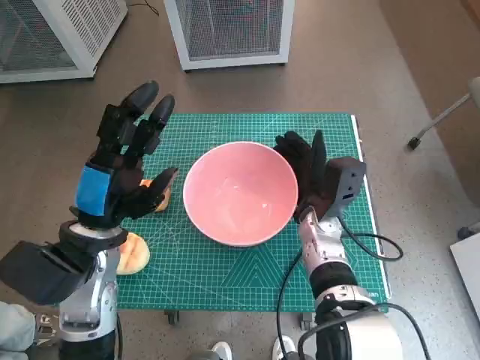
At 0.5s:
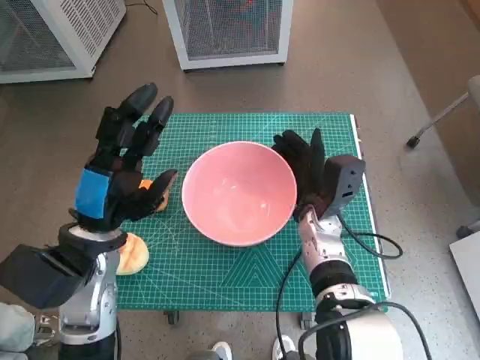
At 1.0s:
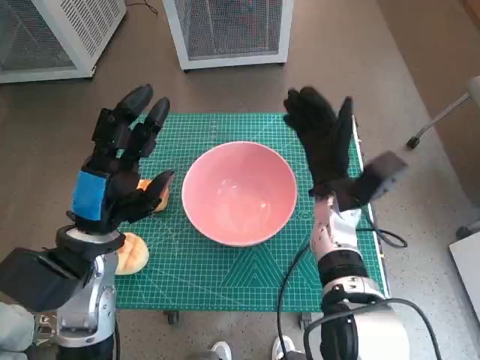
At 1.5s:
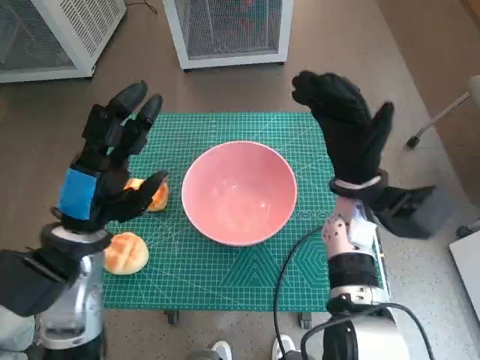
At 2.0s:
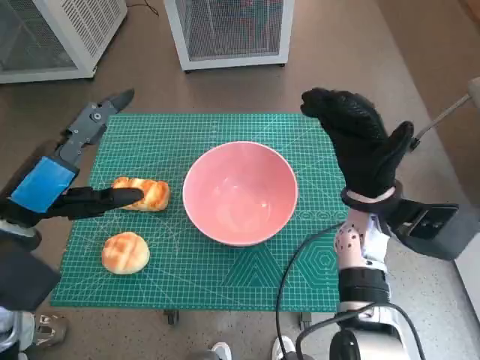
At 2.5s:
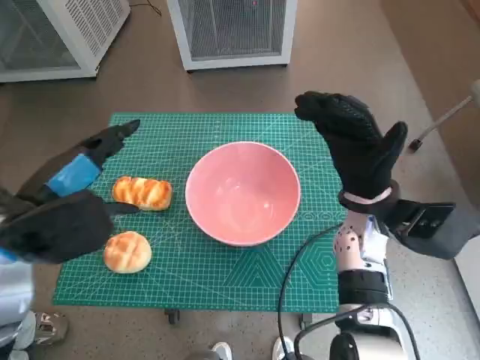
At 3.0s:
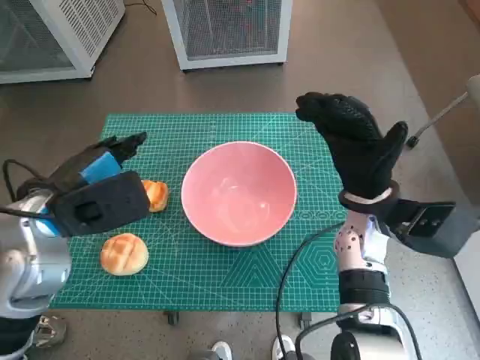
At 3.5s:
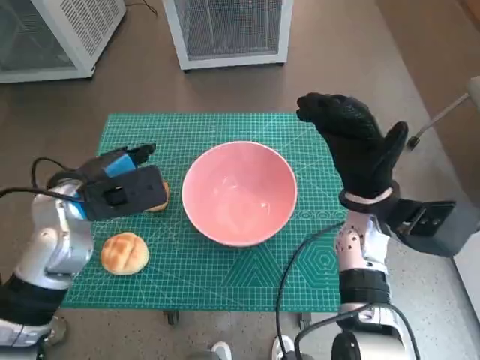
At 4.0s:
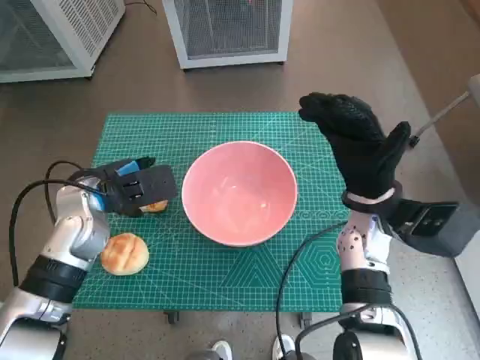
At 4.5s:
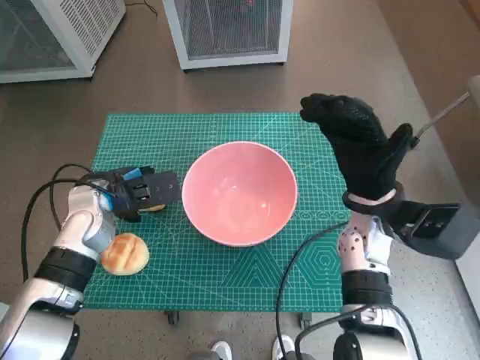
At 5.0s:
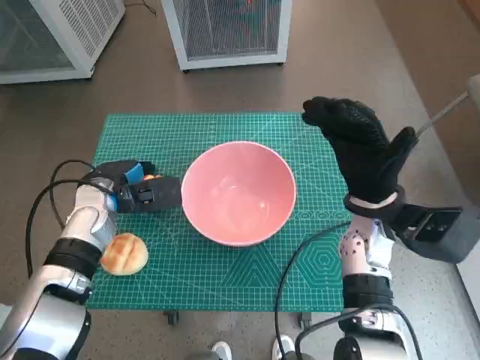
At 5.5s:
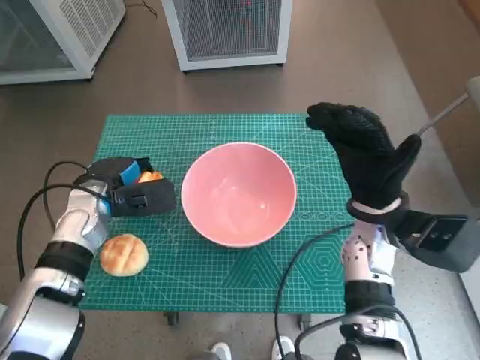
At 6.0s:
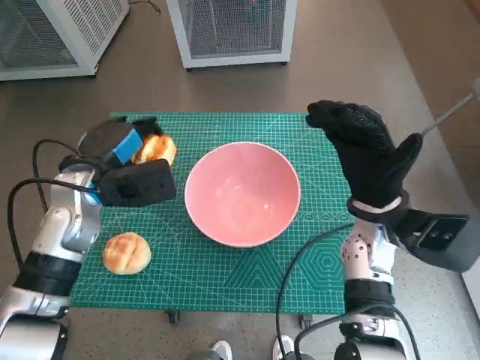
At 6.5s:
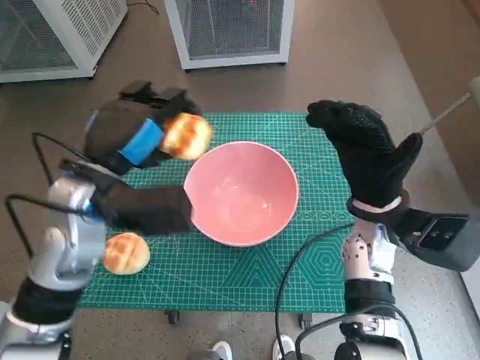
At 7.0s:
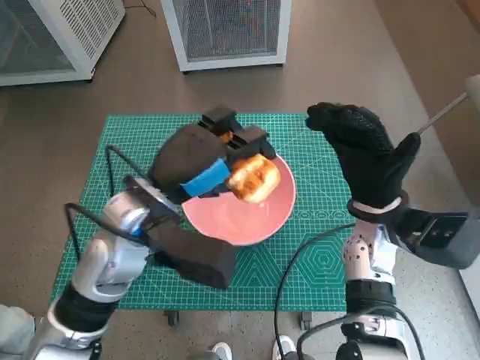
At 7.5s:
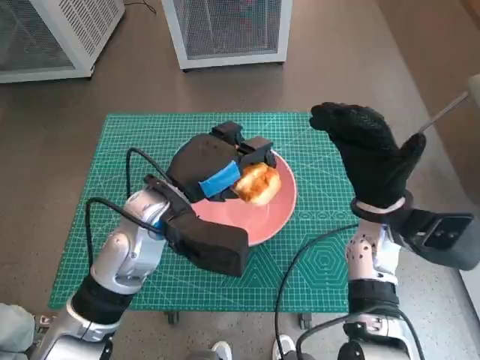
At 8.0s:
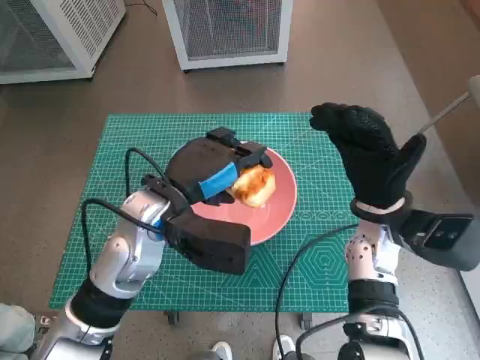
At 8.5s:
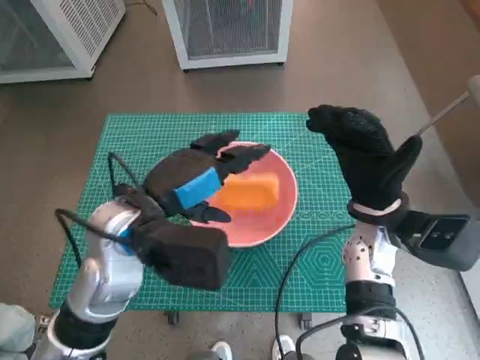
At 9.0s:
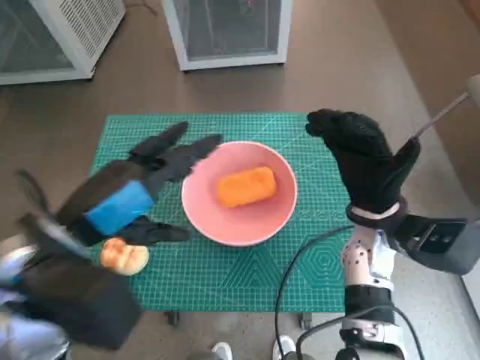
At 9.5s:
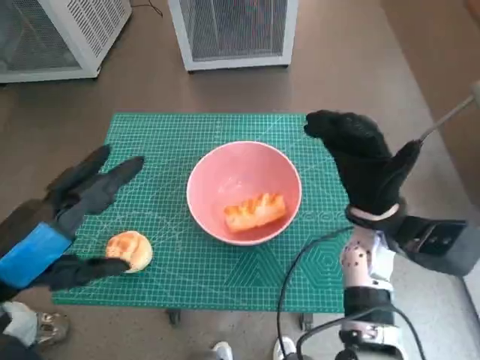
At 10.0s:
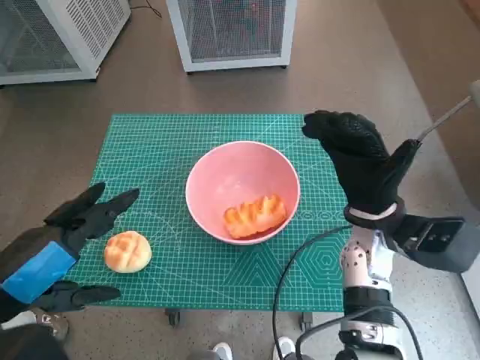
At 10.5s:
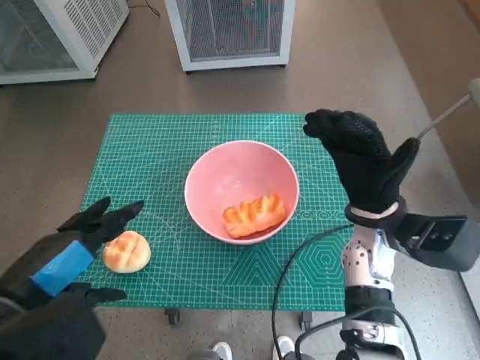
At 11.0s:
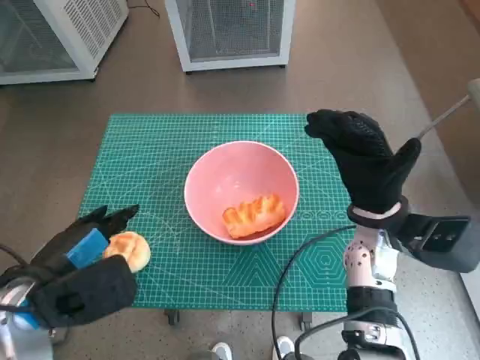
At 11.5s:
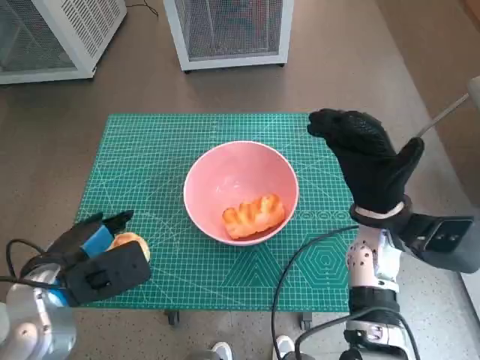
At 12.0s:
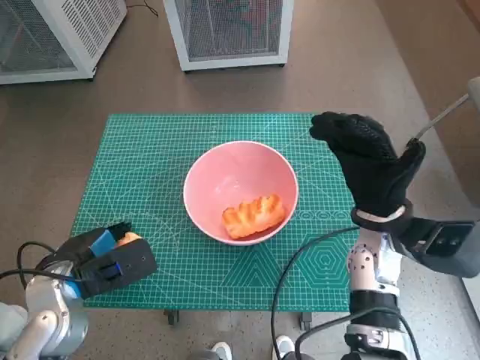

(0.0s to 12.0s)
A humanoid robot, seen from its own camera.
Task of the whole recording: Push the bowl into the center of the table and put the bread into the bowl.
Step, 1.0s - 4.5s: Grasp the long bread with left hand.
Step, 5.0s - 8.0s: Place the long bread in pink bowl with left hand.
0.0s - 2.0s: The left hand moves upward and to the left, roughly 10 cm. Meanwhile the right hand moves upward and to the right, roughly 10 cm.
2.0s - 4.0s: The left hand travels forward and downward by about 15 cm.
6.0s - 8.0s: The left hand travels to the right by roughly 10 cm.
8.0s - 10.0s: The left hand travels backward and to the left by roughly 20 cm.
10.0s - 12.0s: The left hand is displaced downward and forward by roughly 15 cm.

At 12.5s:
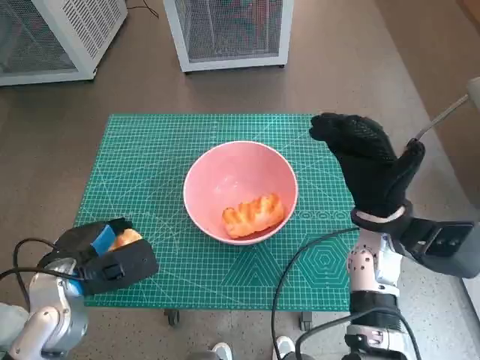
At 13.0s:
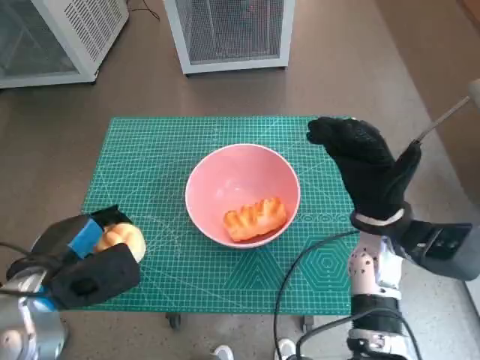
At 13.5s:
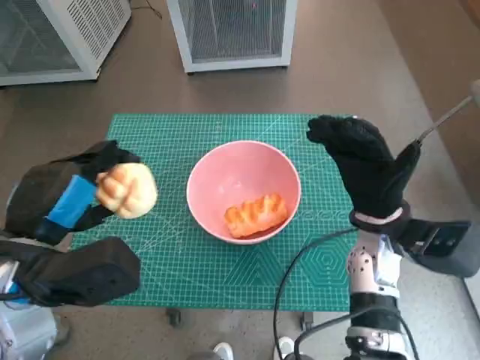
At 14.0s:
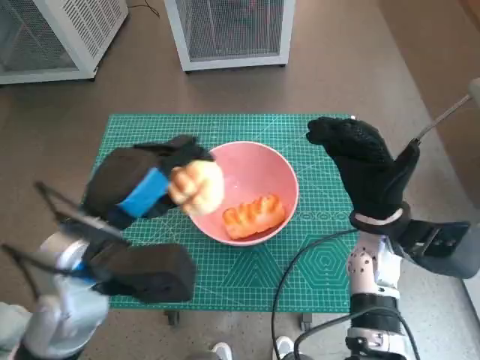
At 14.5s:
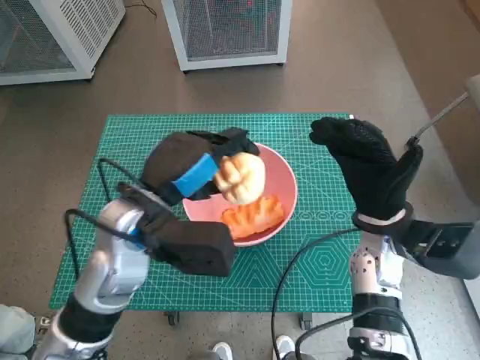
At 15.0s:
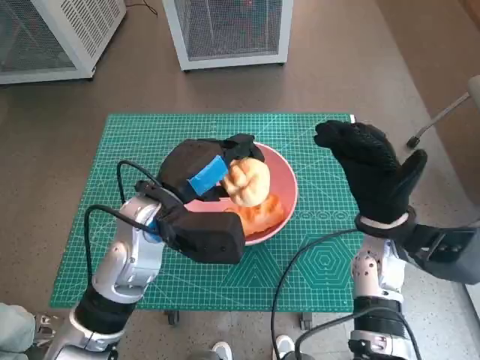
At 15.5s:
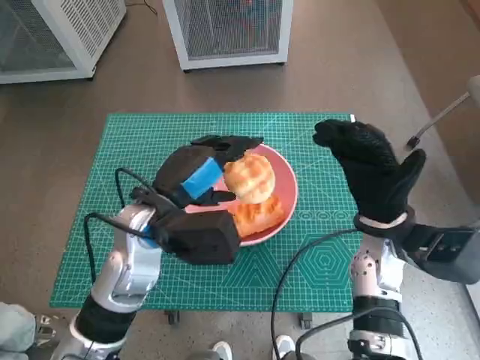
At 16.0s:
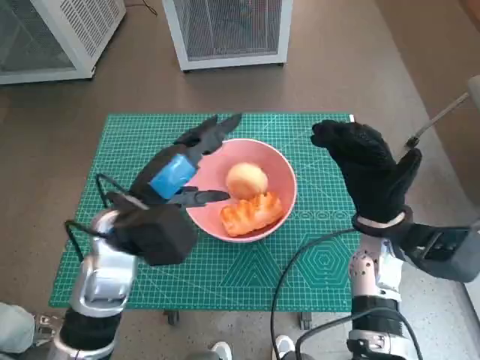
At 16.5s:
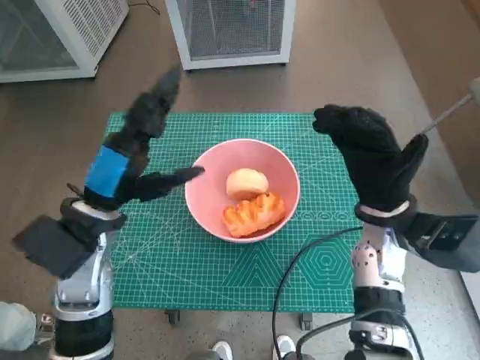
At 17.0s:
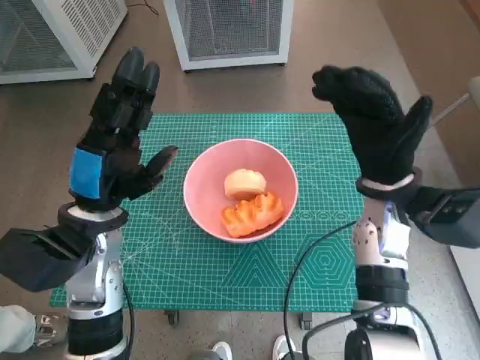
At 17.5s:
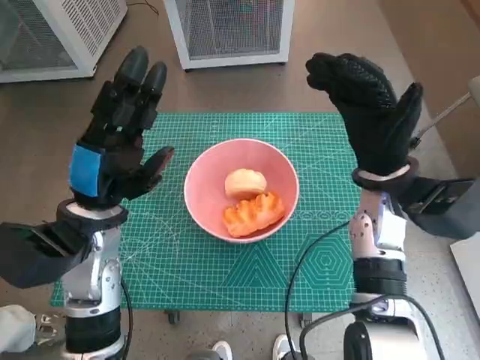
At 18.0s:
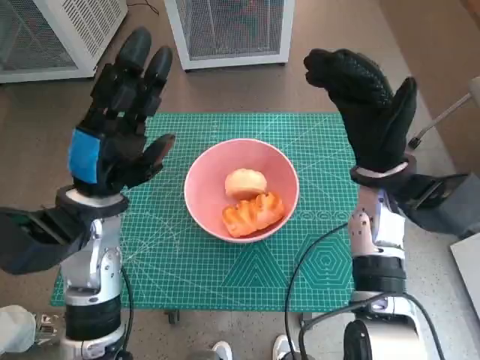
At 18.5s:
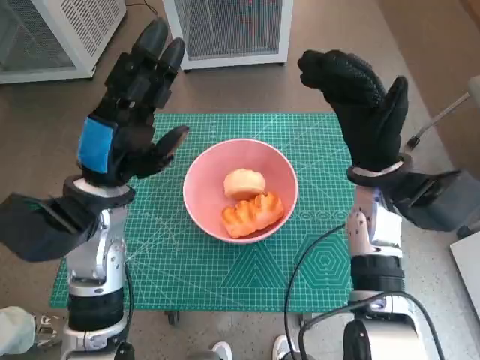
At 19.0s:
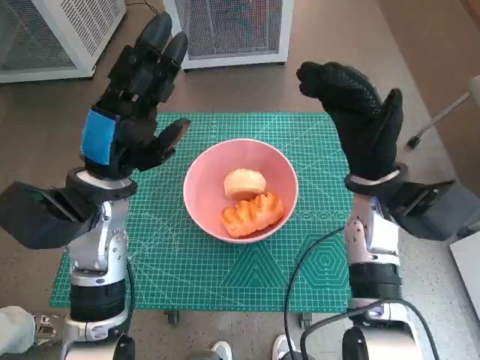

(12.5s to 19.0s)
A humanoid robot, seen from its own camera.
Task of the whole recording: Push the bowl into the center of the table and put the bread into the bowl.
Step, 12.5s - 15.5s: Place the round bread in pink bowl with left hand.
12.5s - 14.5s: The left hand travels to the right and upward by about 15 cm.
14.5s - 17.0s: The left hand heads to the left, covering approximately 5 cm.

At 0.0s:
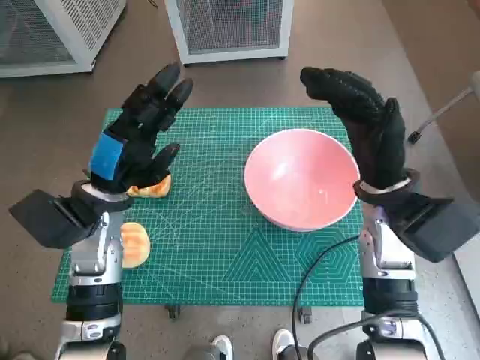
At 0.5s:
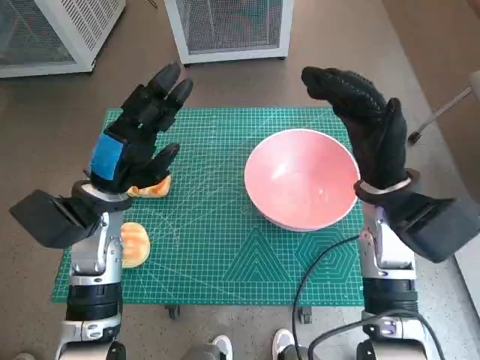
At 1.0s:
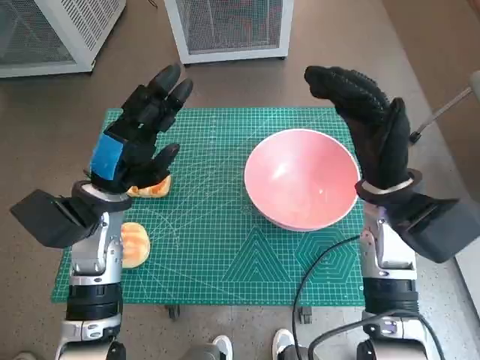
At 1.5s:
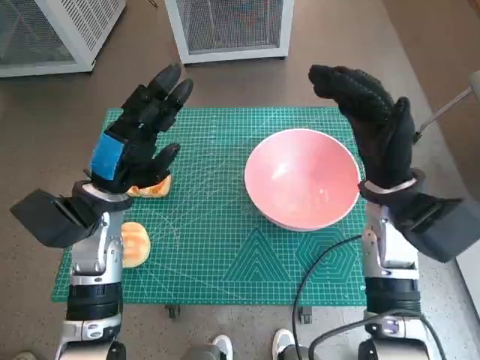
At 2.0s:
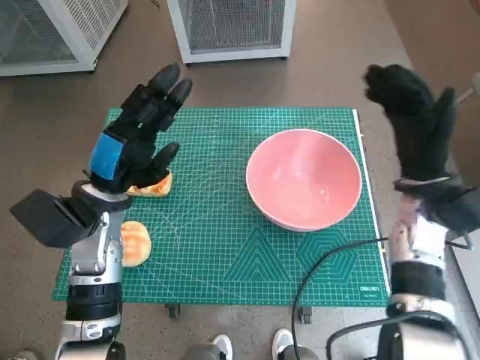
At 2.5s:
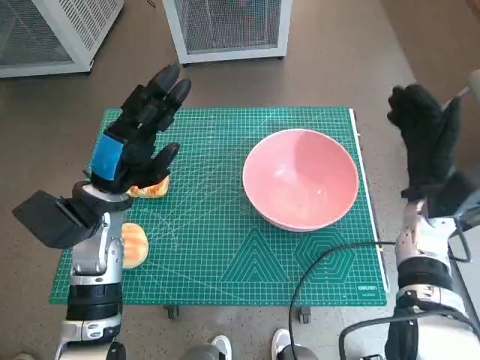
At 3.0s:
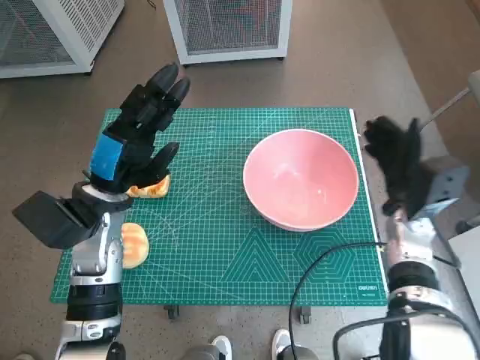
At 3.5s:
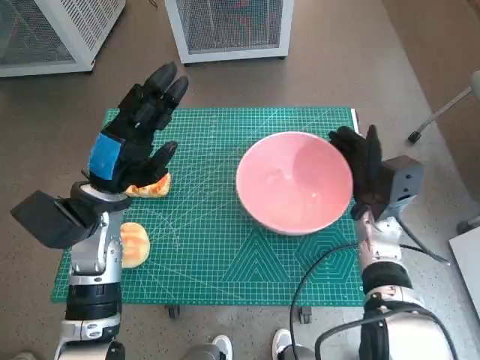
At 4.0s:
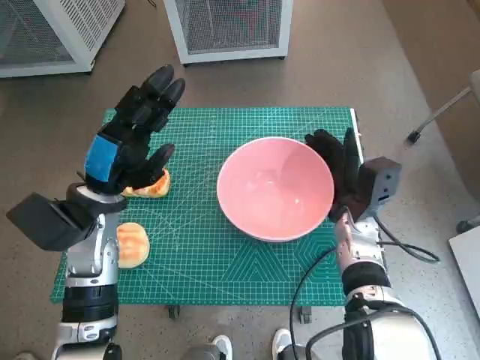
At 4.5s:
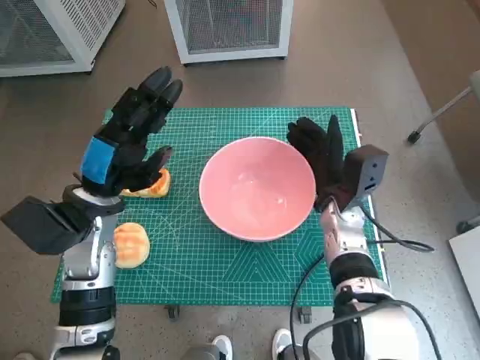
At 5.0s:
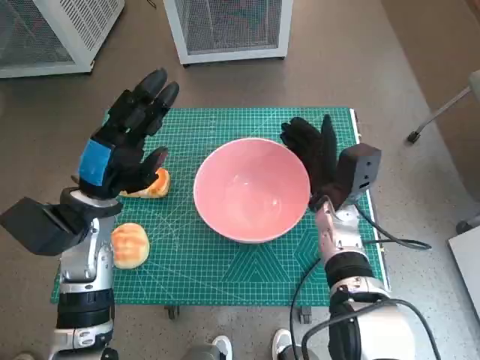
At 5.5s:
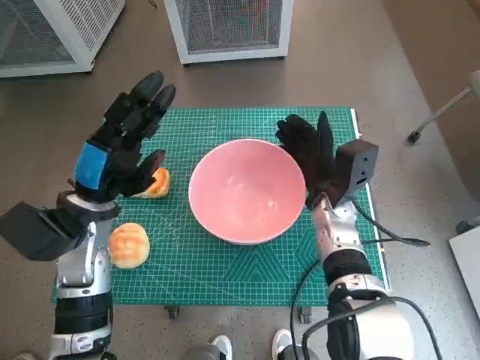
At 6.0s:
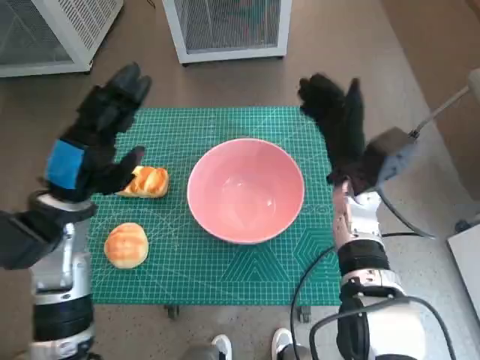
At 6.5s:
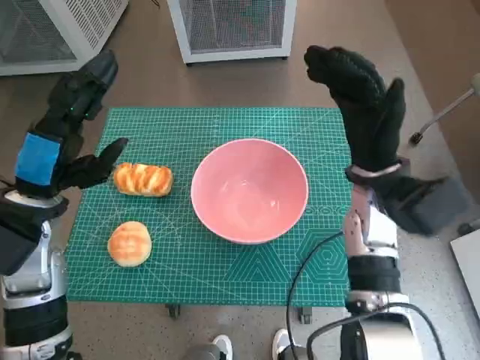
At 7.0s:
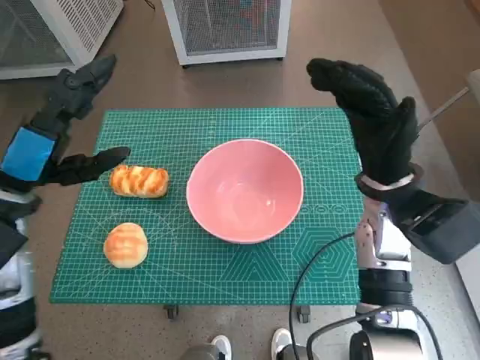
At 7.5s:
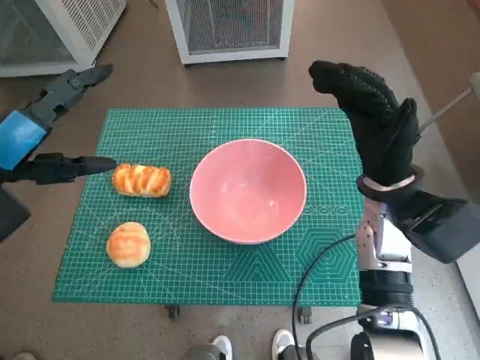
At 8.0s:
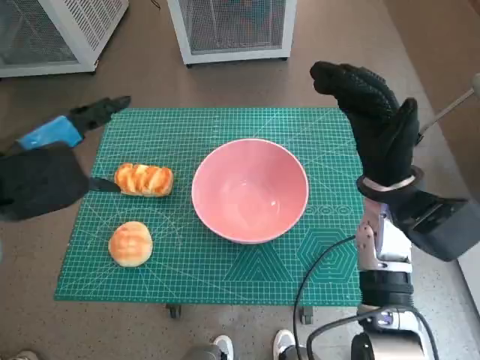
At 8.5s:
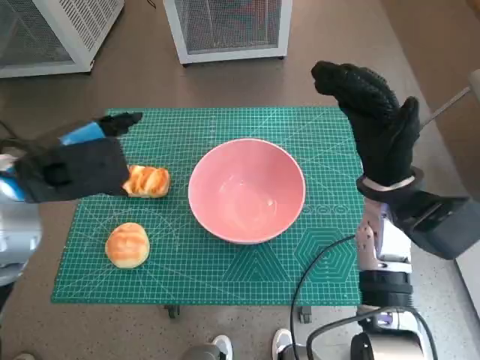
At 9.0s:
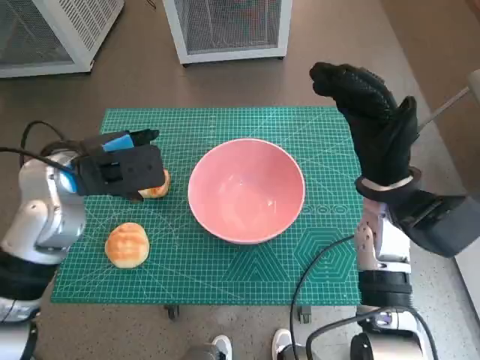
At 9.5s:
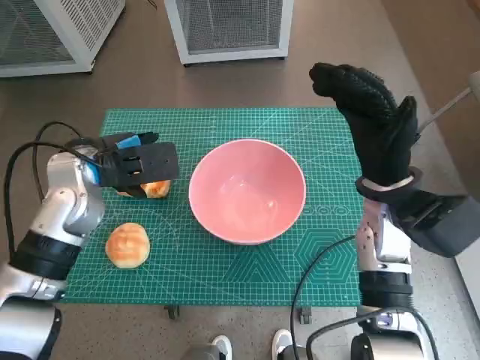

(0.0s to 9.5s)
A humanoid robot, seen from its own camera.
Task of the whole recording: Push the bowl into the center of the table and put the bread into the bowl.
Step, 0.0s - 5.5s: Move the pink bowl to the center of table with right hand.
2.0s - 4.0s: The right hand moves downward and to the left, approximately 10 cm.
5.5s - 7.5s: The right hand heads upward, covering roughly 10 cm; the left hand goes about 10 cm upward and to the left.
7.5s - 9.5s: The left hand is displaced forward, downward and to the right by about 15 cm.
